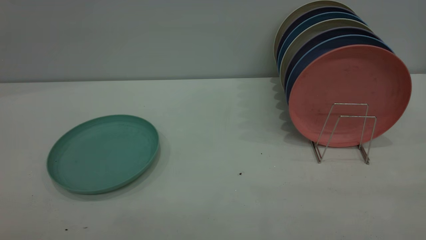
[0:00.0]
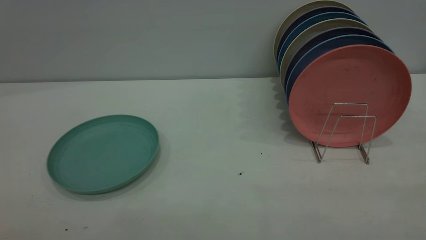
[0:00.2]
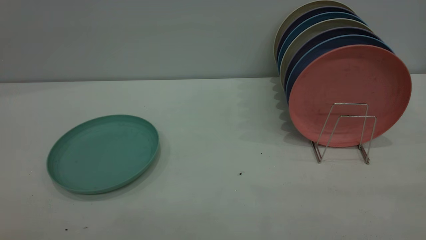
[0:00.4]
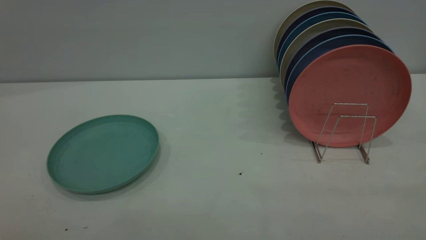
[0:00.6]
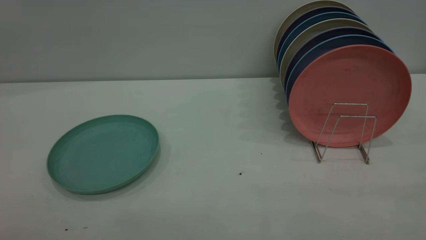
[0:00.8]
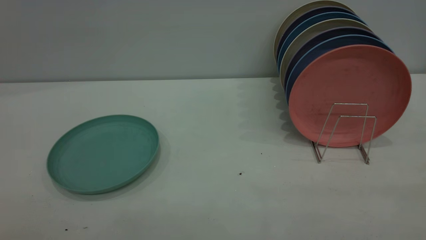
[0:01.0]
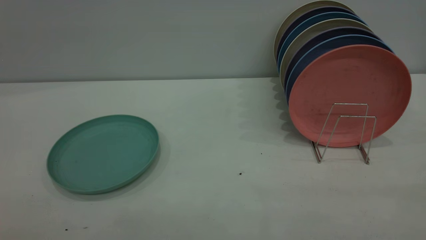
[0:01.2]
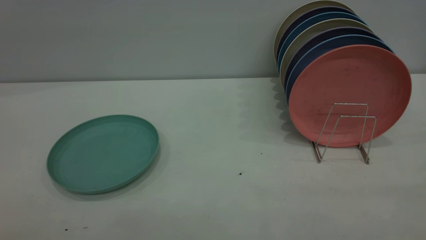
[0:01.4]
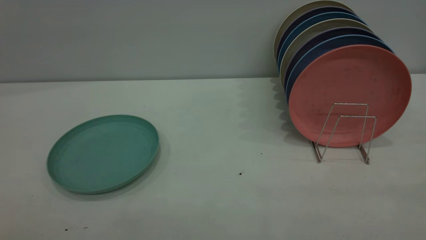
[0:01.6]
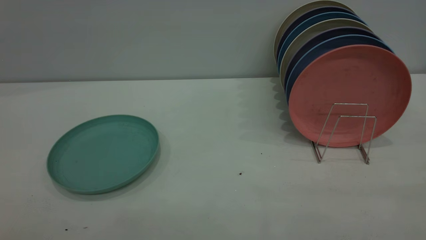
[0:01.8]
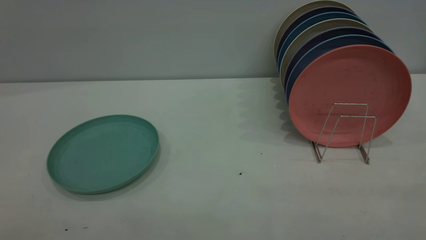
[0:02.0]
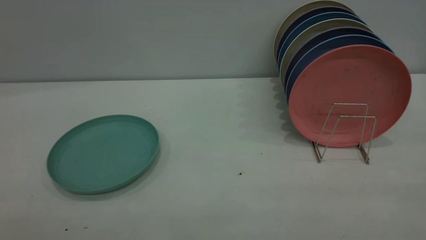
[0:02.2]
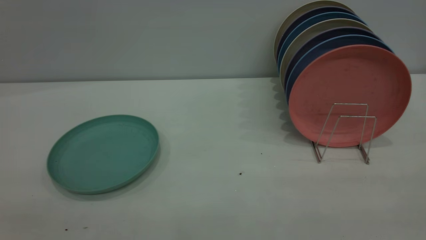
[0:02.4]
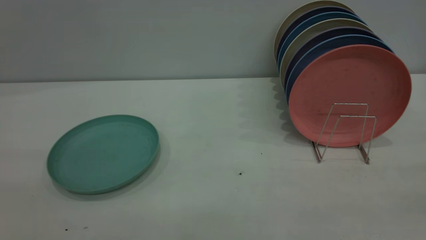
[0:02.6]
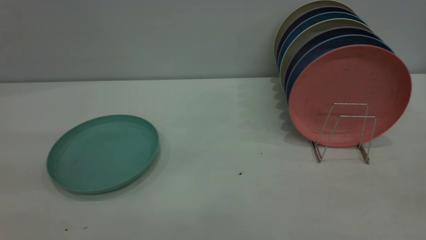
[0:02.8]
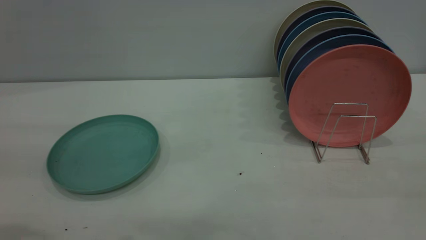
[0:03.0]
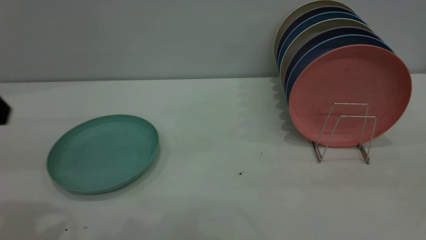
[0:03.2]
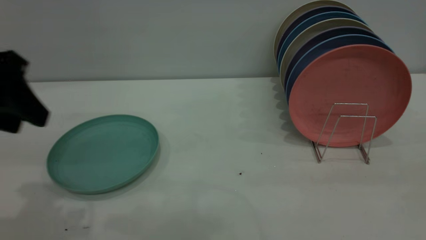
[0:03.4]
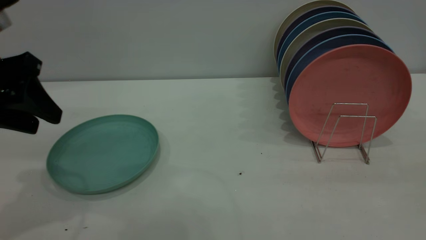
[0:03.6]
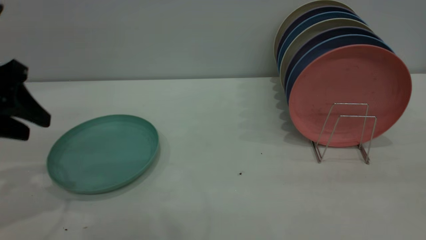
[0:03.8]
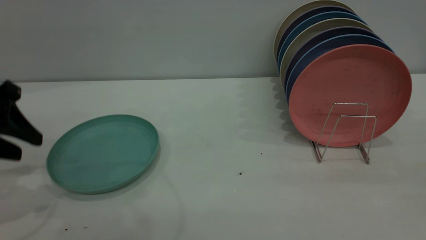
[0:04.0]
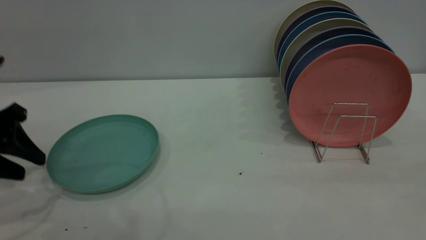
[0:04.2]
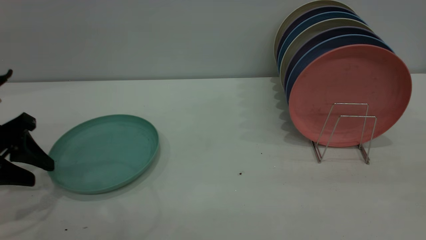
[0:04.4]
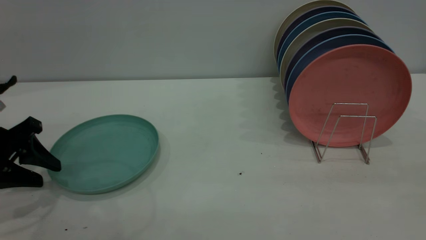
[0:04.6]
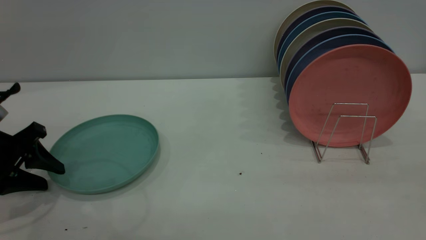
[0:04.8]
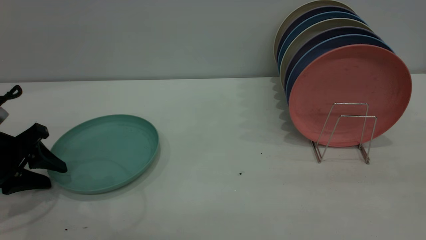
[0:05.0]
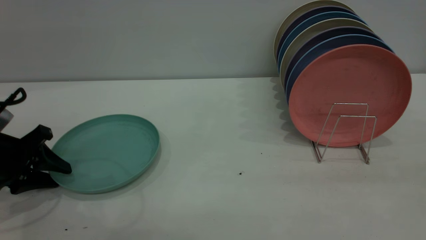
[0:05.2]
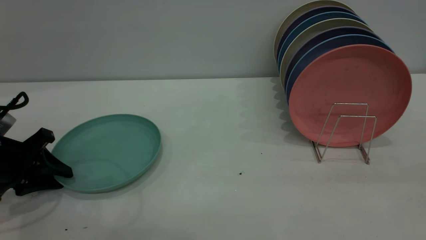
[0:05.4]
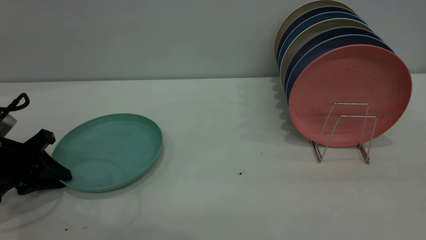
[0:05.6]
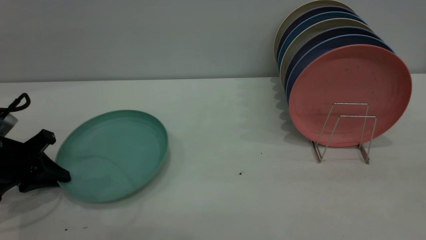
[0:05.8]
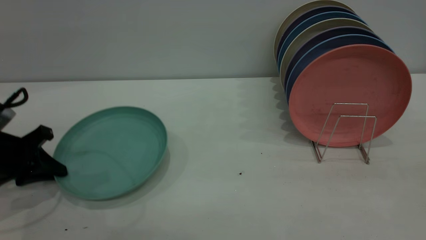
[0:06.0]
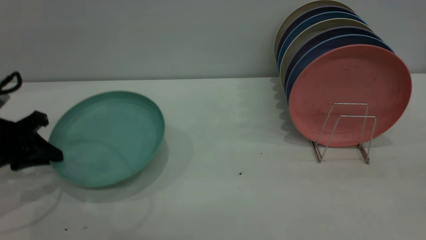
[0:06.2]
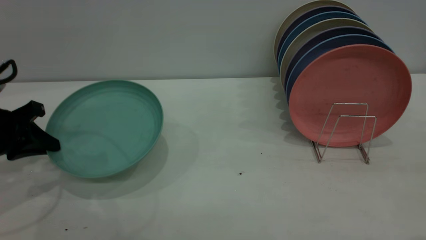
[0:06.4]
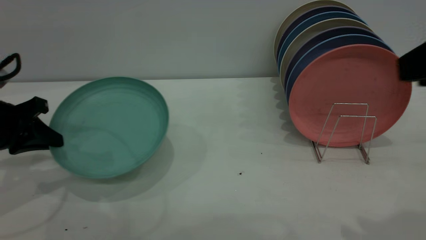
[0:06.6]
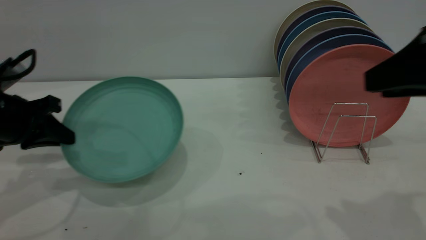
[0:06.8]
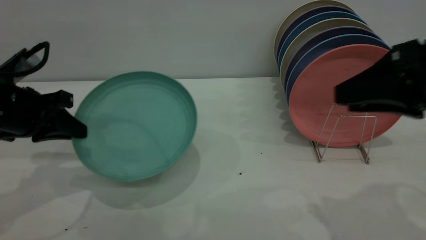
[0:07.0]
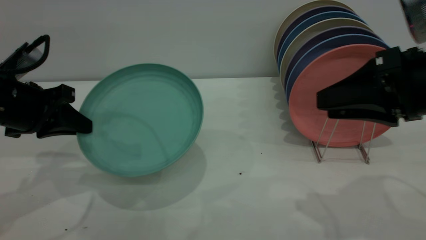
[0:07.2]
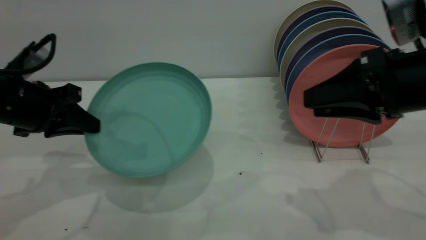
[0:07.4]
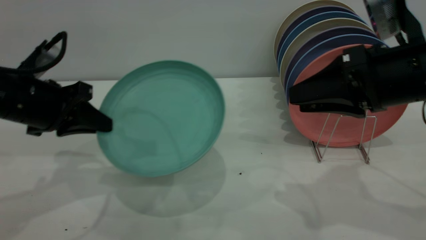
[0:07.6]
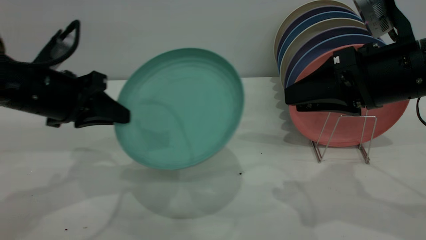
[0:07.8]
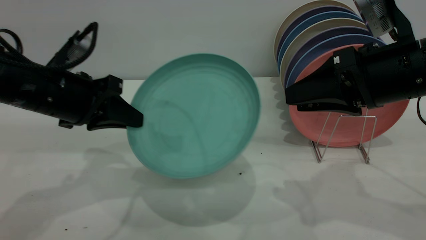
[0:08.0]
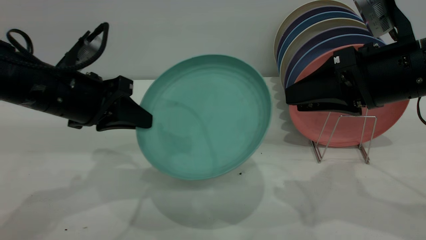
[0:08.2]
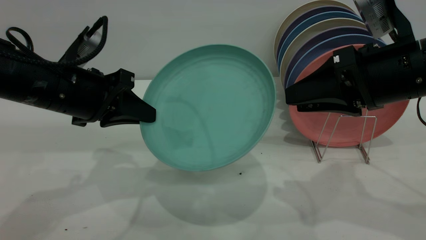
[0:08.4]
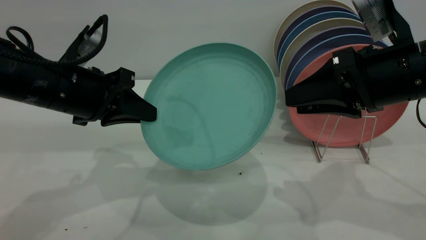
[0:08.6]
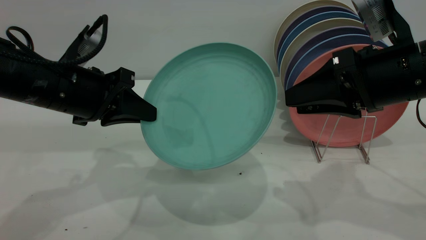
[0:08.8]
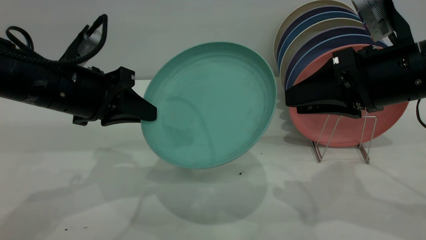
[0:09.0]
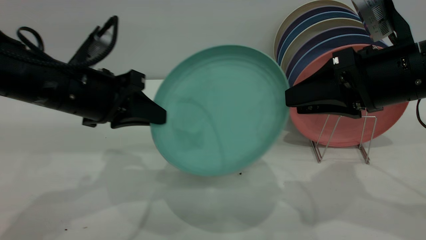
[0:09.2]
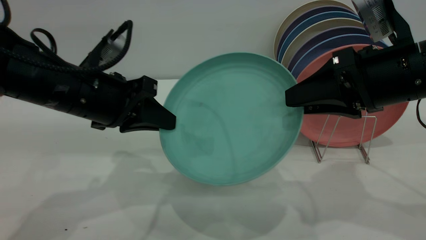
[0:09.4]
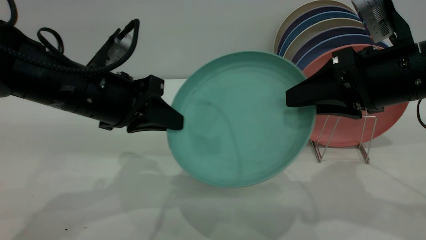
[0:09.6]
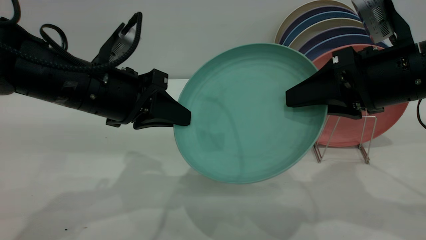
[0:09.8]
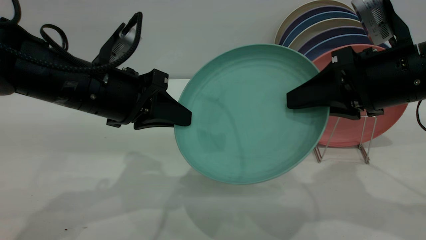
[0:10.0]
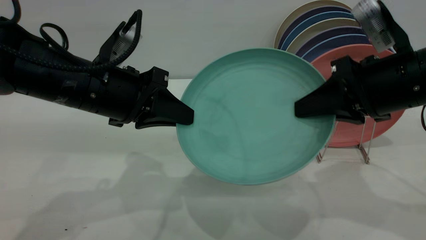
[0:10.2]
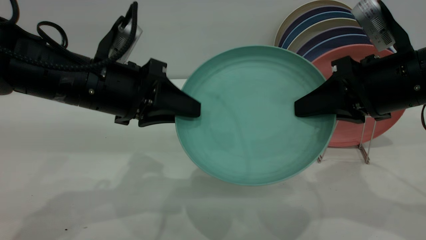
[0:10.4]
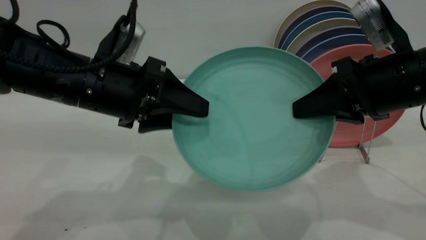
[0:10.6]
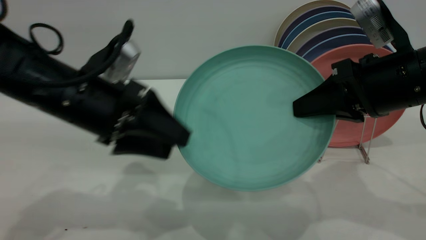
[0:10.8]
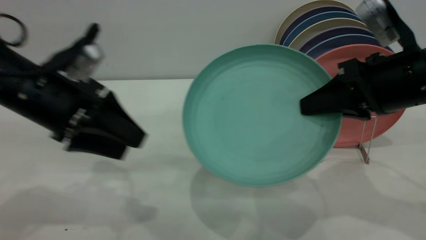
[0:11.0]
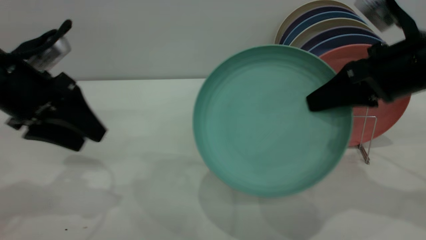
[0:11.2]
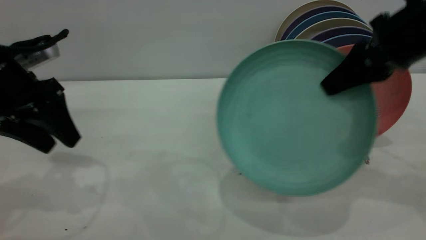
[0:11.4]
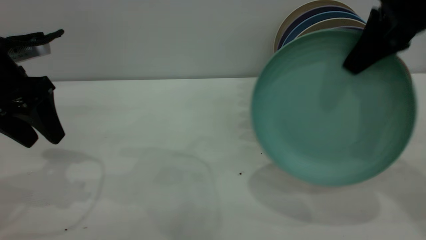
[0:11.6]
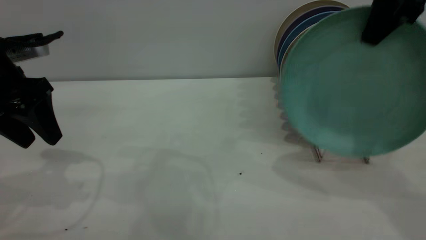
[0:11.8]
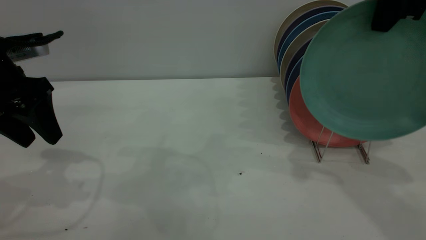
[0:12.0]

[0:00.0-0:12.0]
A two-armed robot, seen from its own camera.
Task of the whole recording: the left gripper grasp the green plate, the left gripper pass the green plate to the right gripper, and the right gripper place the green plate on the plate rack.
Step, 0:00.0 to 0:06.6: Pick up the plate with the left gripper.
Step, 0:06.8 to 0:11.0: Pass the plate from the left gripper to the right gripper.
0:00.0 to 0:01.6: The two grippers keep their place.
0:03.0 to 0:04.4: The left gripper shifts approximately 20 cm downward and forward.
0:04.4 to 0:06.0: The left gripper closes.
0:06.0 to 0:07.6: The left gripper moves to the right and upward, some 10 cm, while the right gripper travels forward and downward by about 25 cm.
0:07.6 to 0:09.0: The left gripper heads to the right, covering roughly 5 cm.
0:09.0 to 0:10.4: The left gripper shifts some 5 cm to the right, and opens its fingers, while the right gripper closes.
0:10.4 to 0:12.0: The left gripper goes about 15 cm to the left, and opens up. The right gripper travels upward and forward by roughly 15 cm.

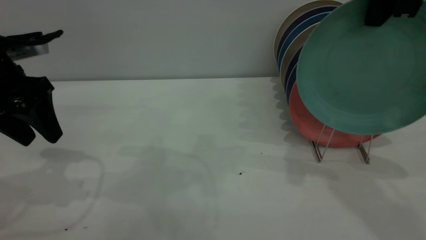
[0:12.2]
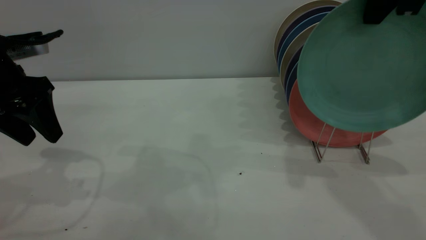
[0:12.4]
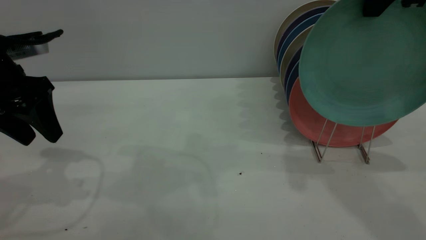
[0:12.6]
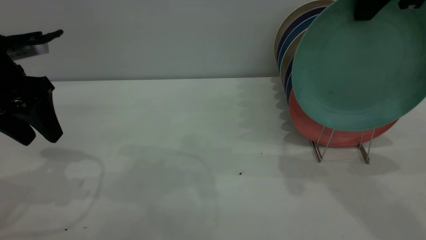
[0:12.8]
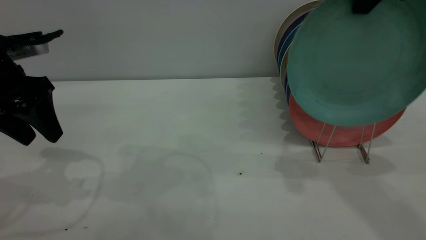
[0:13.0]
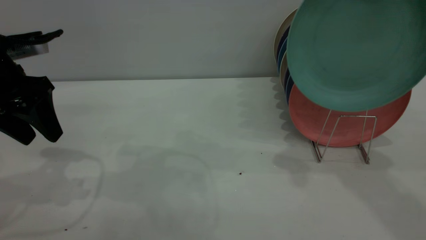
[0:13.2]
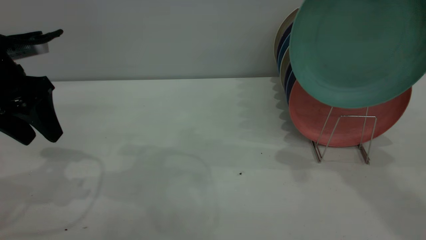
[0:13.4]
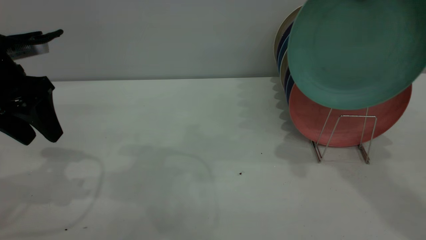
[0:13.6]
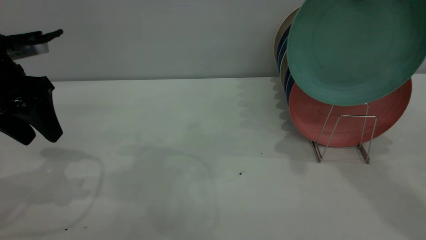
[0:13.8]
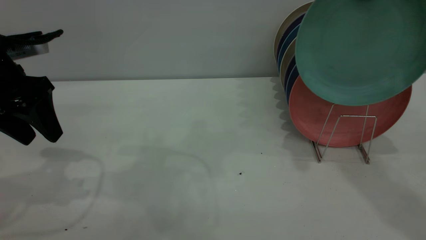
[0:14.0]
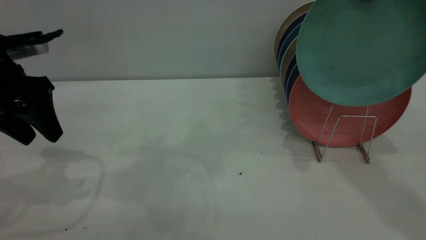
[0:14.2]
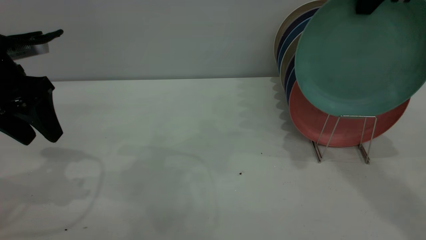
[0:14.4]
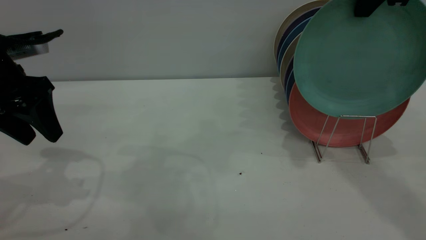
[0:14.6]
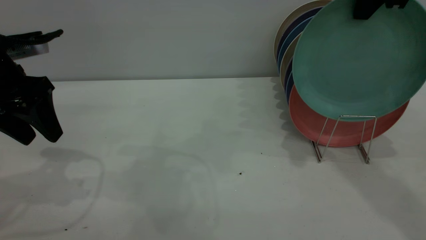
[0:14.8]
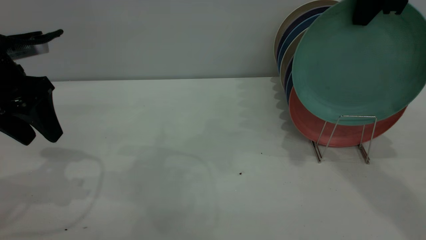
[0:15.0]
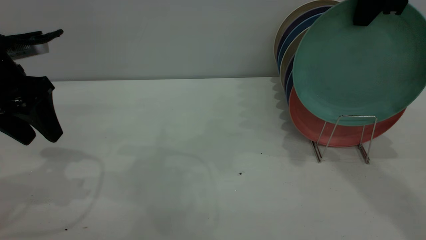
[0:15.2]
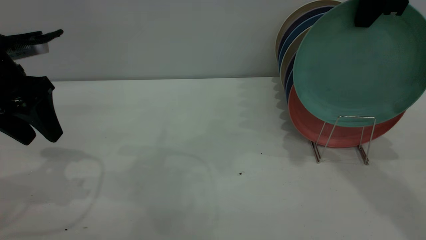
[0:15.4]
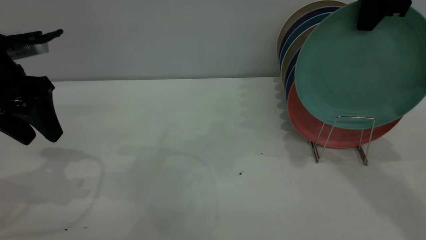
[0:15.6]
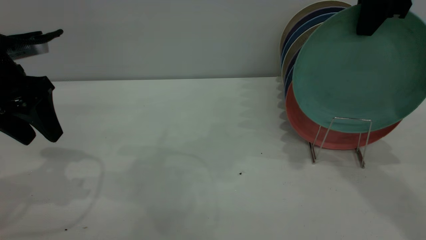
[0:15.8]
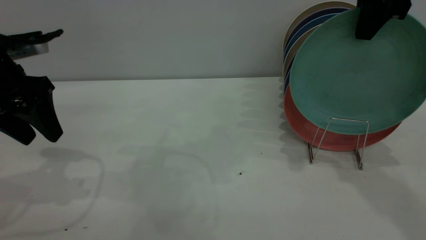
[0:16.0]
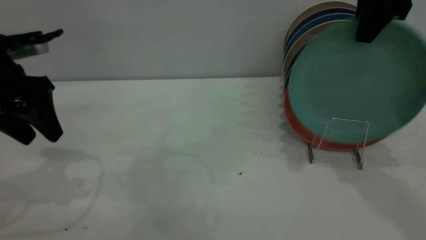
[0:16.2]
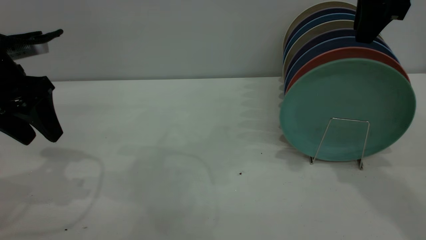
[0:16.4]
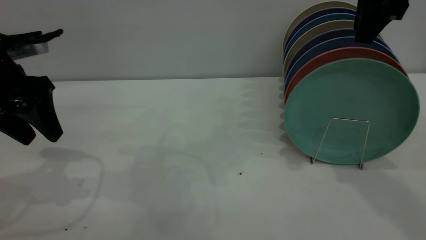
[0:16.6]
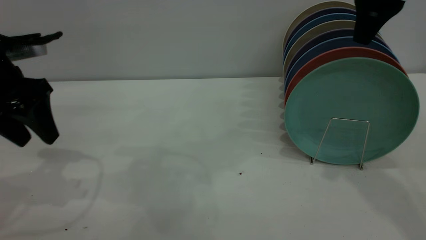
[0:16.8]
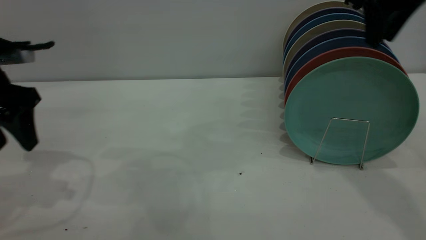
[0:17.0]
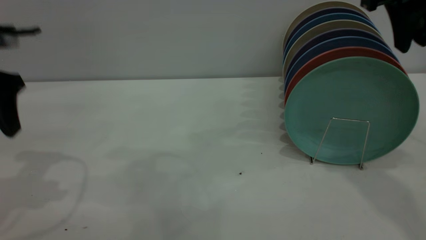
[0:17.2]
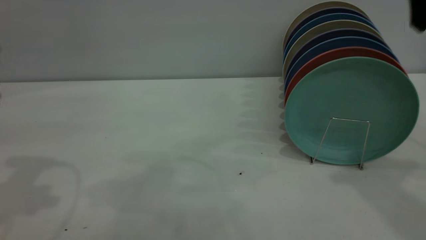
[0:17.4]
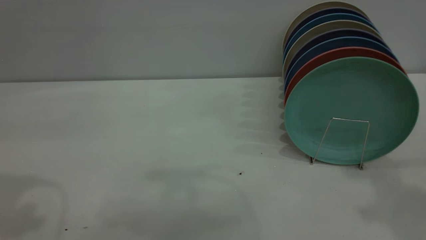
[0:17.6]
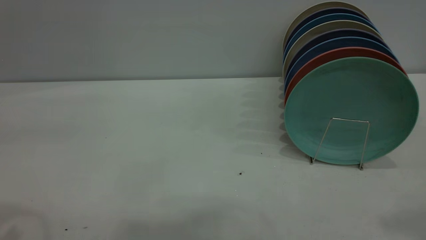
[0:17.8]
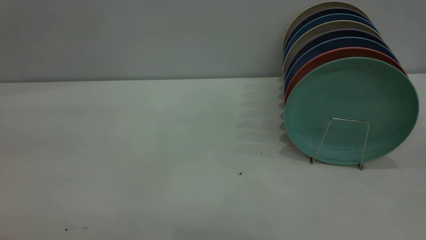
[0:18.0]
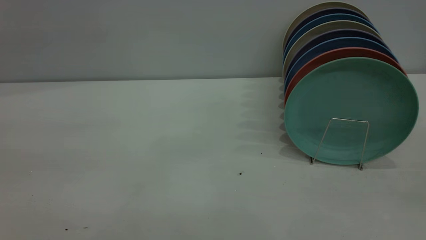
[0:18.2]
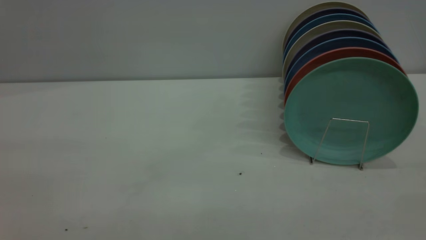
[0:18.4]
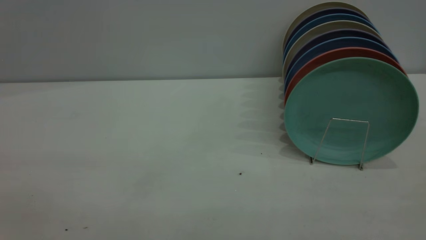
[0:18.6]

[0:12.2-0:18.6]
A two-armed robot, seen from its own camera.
Task of the whole recording: the left gripper grasp the green plate, the left gripper pass the green plate to the right gripper, and the right gripper place the green plate on the plate rack.
Step, 0:12.2 to 0:17.2: Place the plate on the shelf.
0:12.2 to 0:15.4: There are only small adjustments of the grippers.
0:15.4 to 0:17.0: The right gripper opens.
0:17.0 to 0:18.6: The left gripper heads backward and upward, covering roughly 35 cm. Meanwhile the right gripper shifts approximately 40 cm backward.
